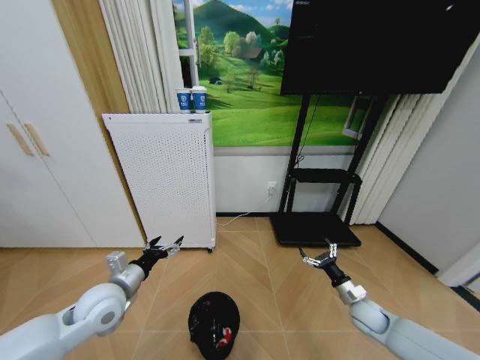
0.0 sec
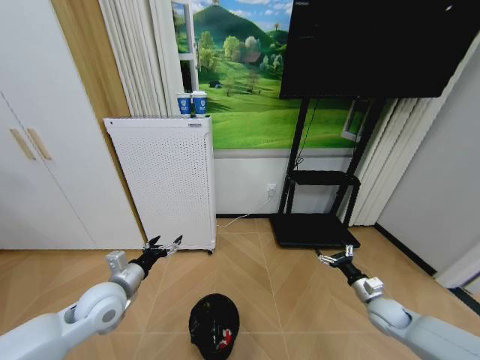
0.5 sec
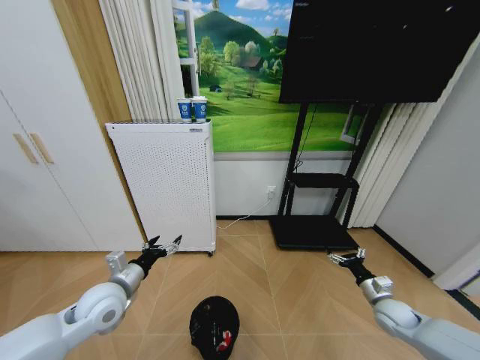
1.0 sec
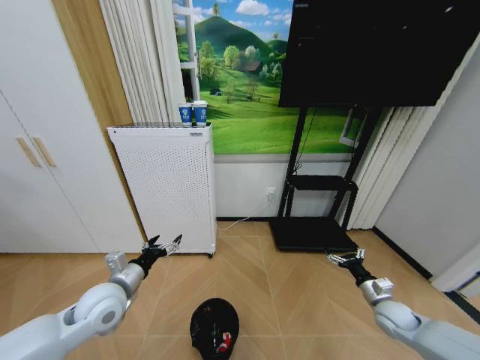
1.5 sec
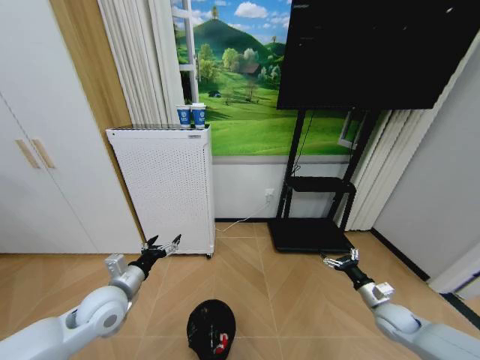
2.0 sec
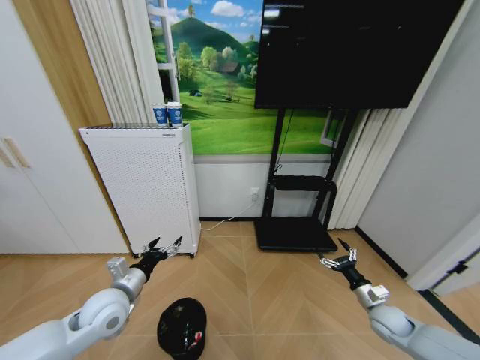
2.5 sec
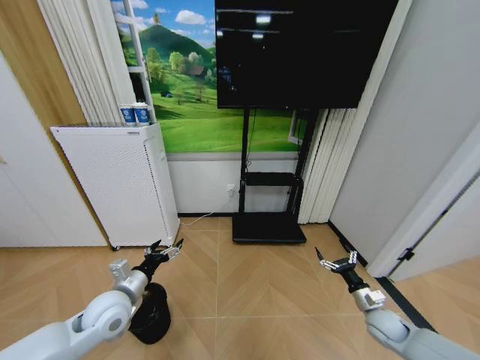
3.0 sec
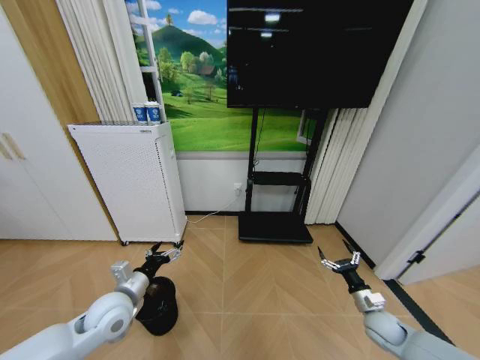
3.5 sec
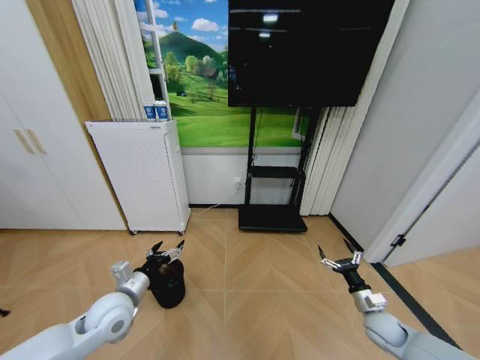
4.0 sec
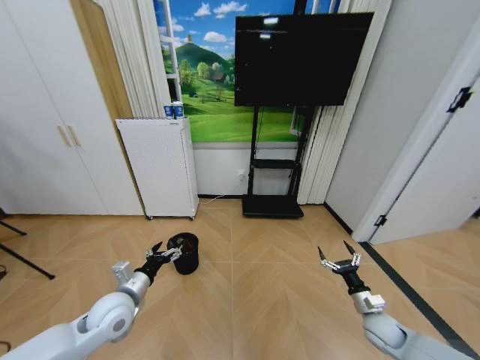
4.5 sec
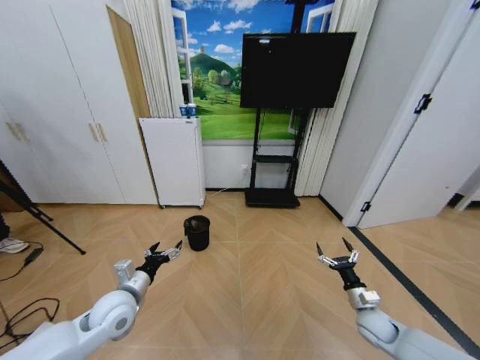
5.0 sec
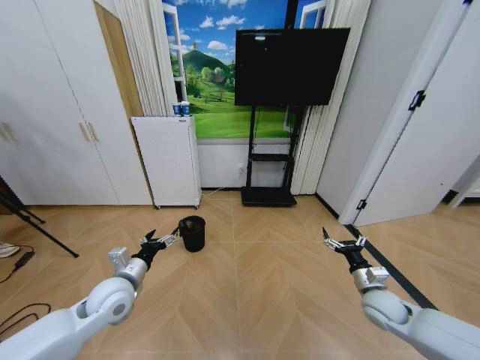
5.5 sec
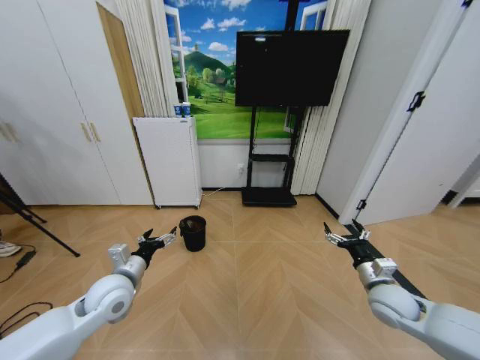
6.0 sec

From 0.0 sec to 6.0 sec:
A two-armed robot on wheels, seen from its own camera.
Task of the whole recording: Pick up the trash bin and place the garbage on the floor into it.
From 0.0 sec to 2.0 sec: The right gripper goes approximately 5 cm to the right.
From 4.0 sec to 6.0 sec: The right gripper heads upward, covering some 15 cm.

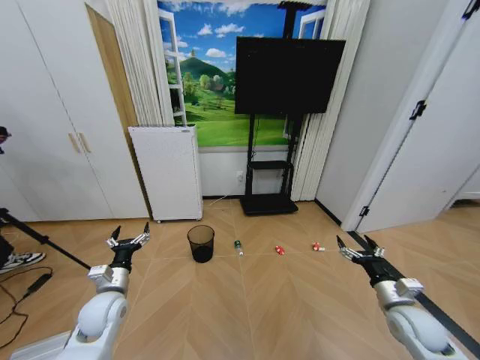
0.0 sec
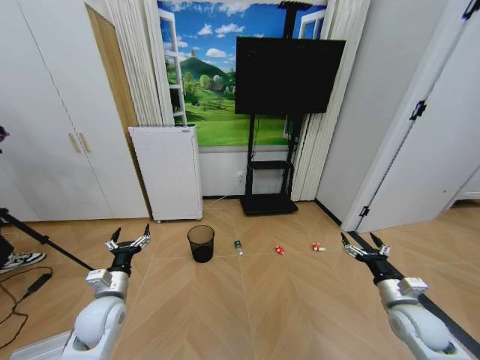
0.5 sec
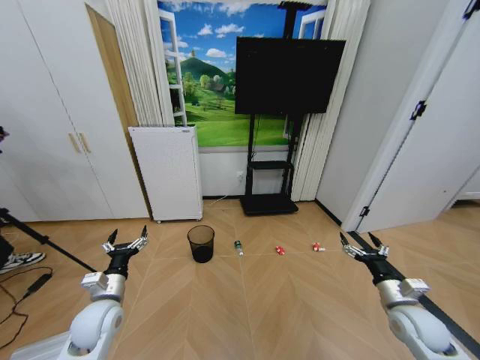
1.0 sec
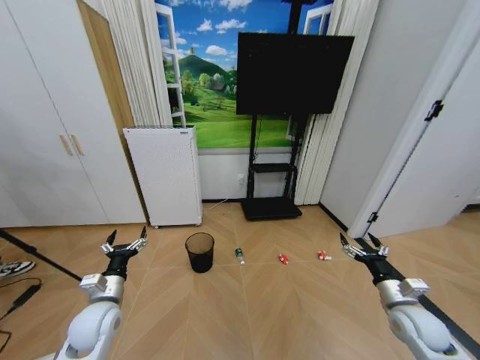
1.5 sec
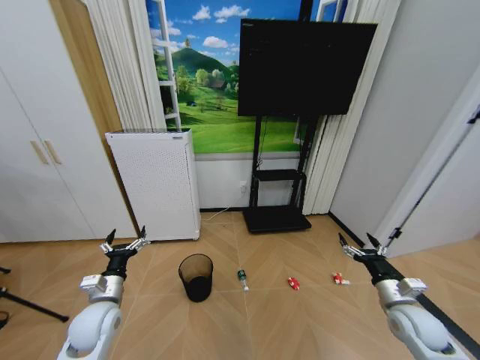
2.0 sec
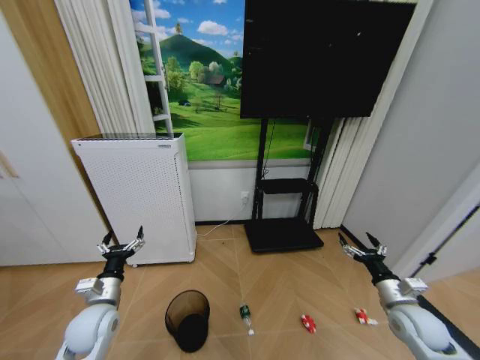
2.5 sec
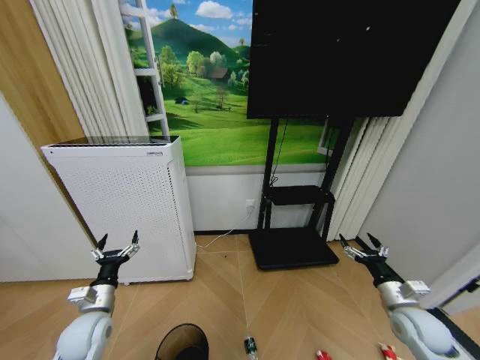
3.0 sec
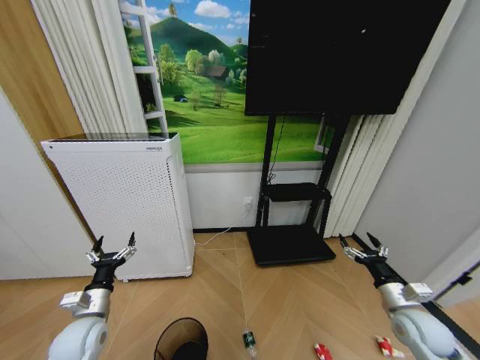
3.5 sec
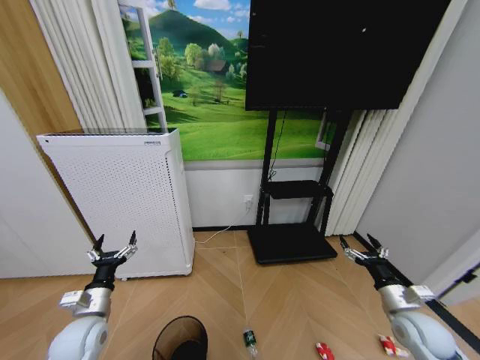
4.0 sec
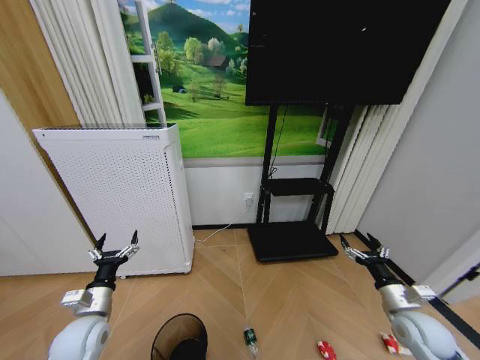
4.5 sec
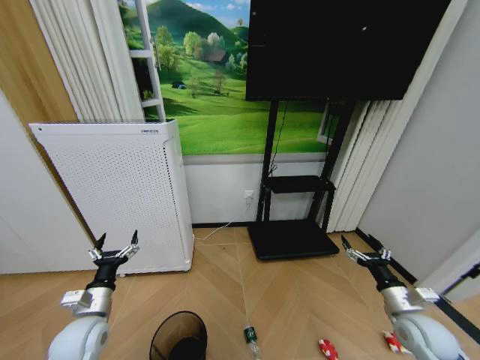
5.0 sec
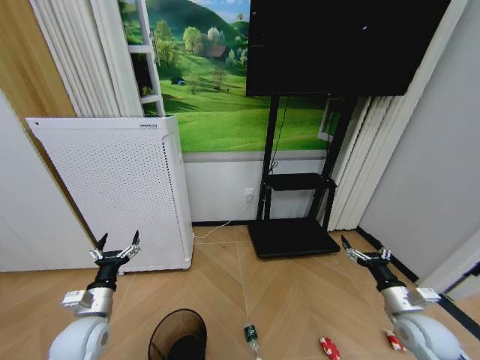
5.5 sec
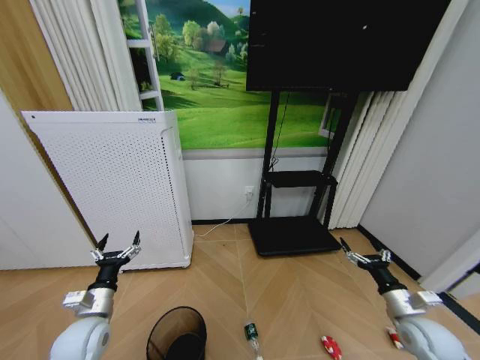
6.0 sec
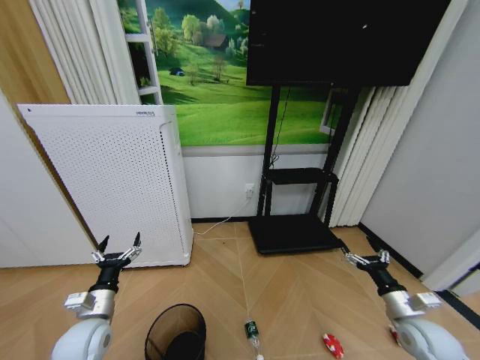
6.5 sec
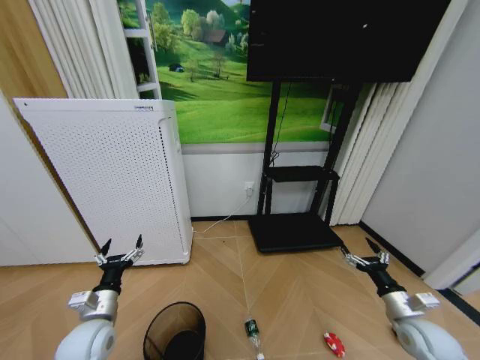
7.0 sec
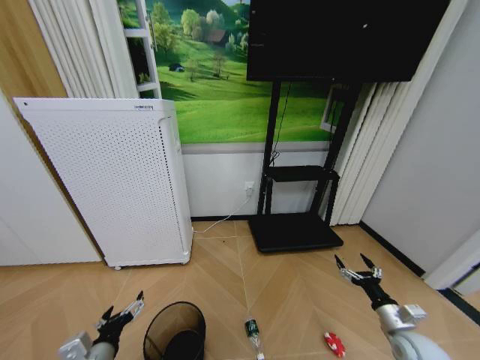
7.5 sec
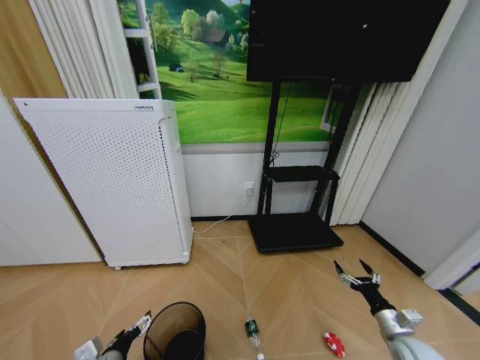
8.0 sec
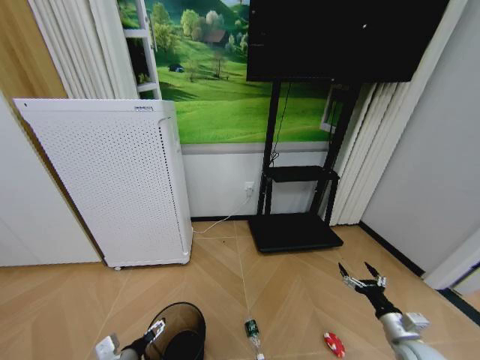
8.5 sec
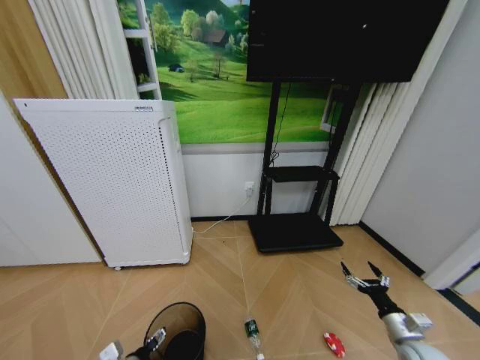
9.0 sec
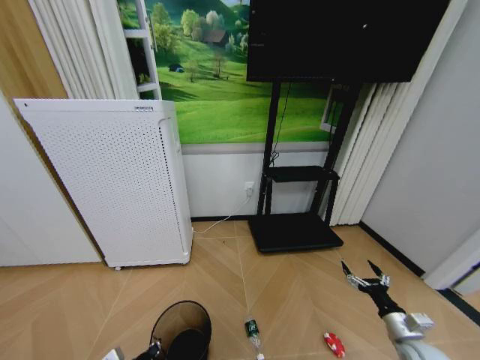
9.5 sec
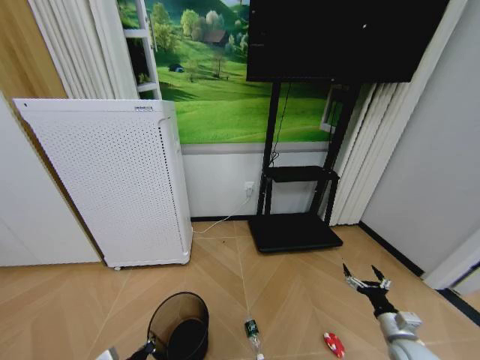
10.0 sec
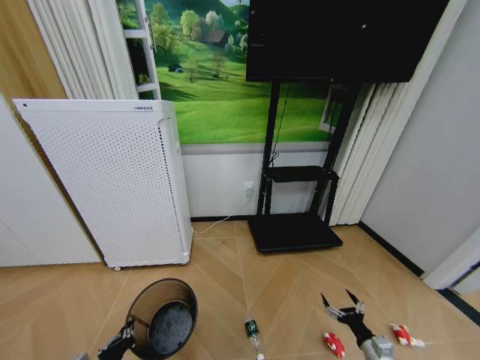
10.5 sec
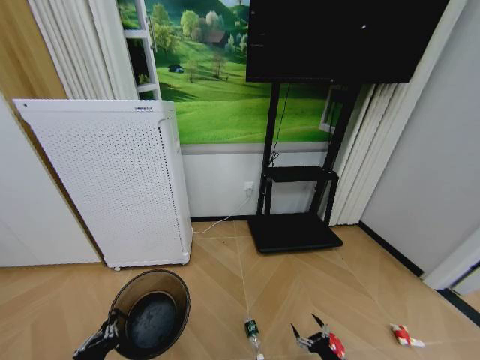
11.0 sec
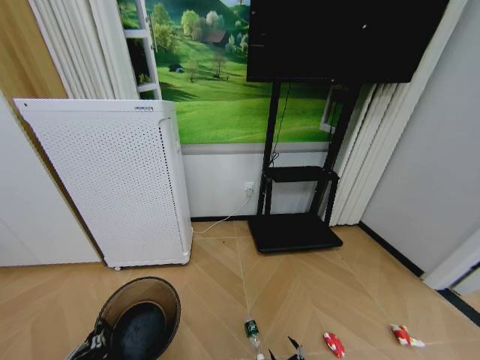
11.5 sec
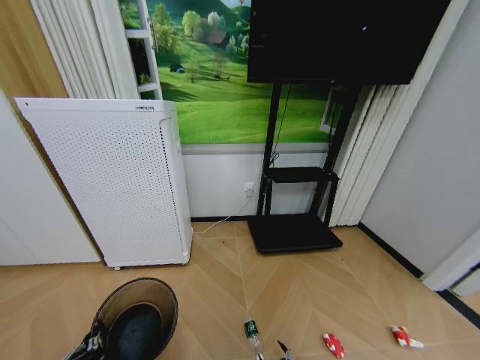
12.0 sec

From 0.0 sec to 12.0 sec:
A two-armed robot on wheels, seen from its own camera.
Task of the whole recording: Pick up the trash bin and place the garbage on the floor into it.
From 6.0 sec to 8.0 sec: The left gripper heads backward, covering approximately 10 cm. Meanwhile the right gripper is displaced downward by roughly 10 cm.
From 8.0 sec to 10.0 sec: The left gripper closes.
From 10.0 sec to 12.0 sec: The left gripper heads upward and backward, covering approximately 15 cm; the right gripper is displaced to the left, downward and backward by about 30 cm.

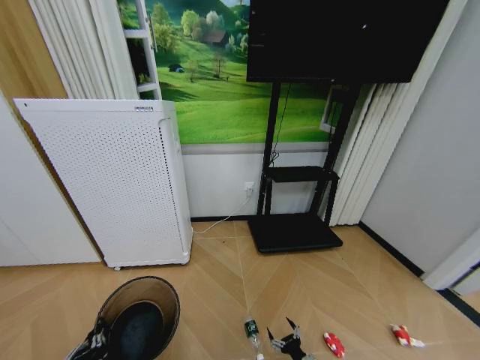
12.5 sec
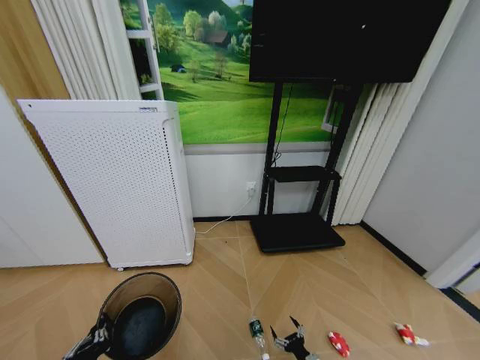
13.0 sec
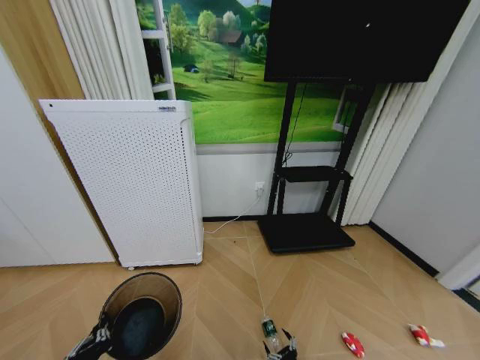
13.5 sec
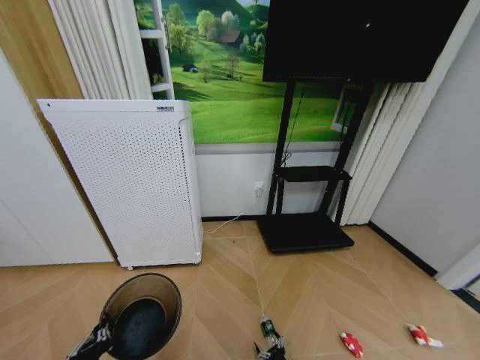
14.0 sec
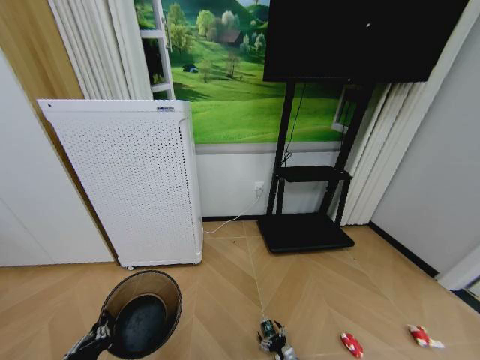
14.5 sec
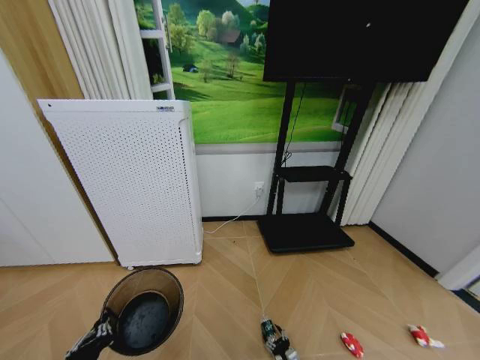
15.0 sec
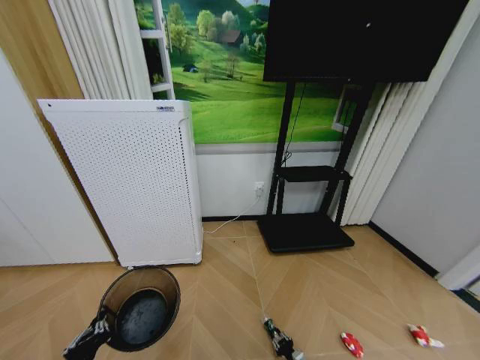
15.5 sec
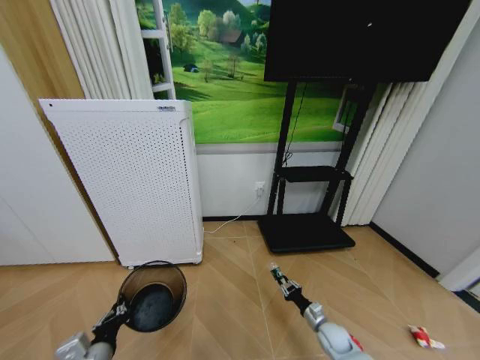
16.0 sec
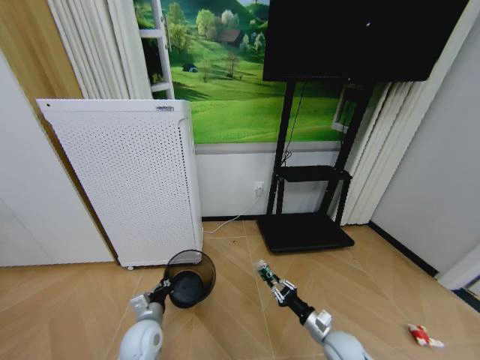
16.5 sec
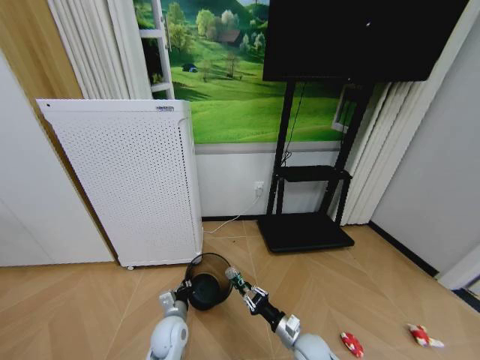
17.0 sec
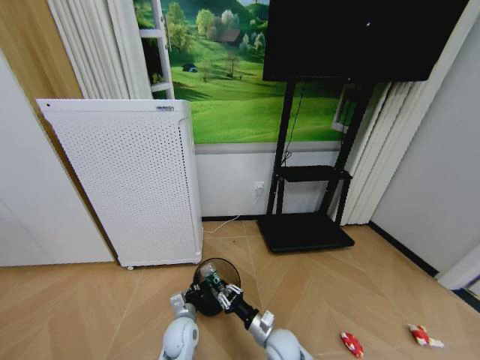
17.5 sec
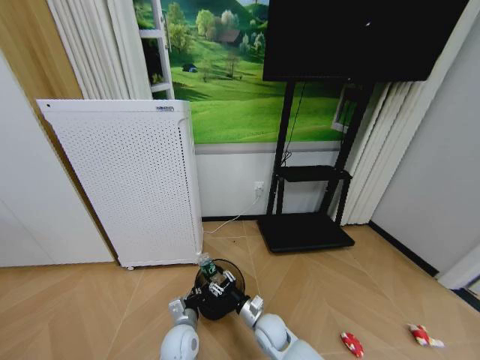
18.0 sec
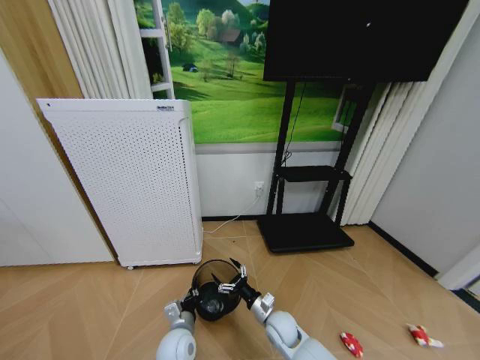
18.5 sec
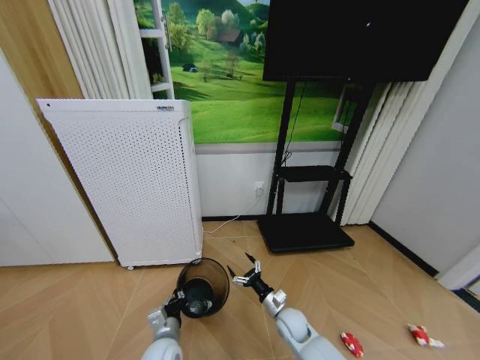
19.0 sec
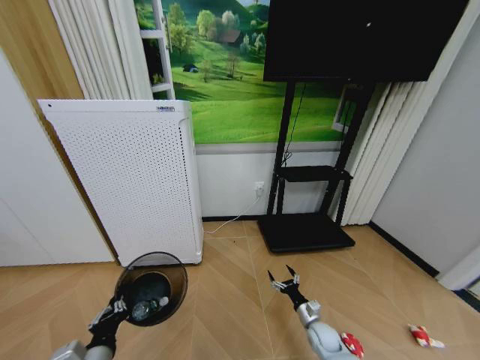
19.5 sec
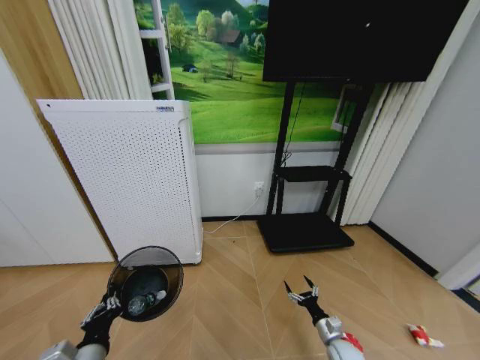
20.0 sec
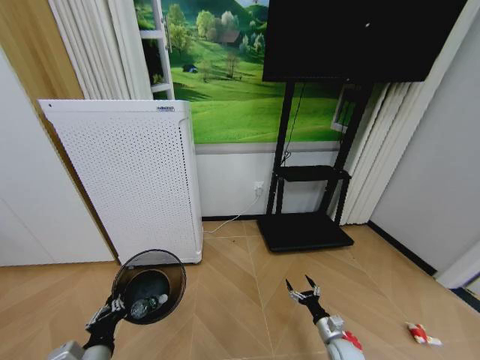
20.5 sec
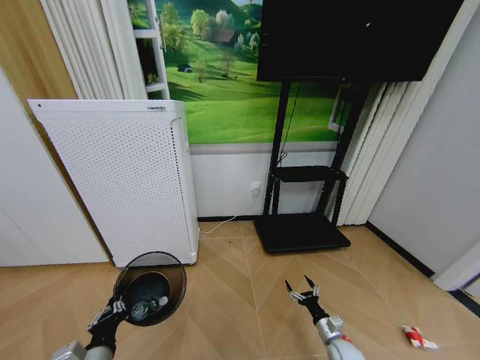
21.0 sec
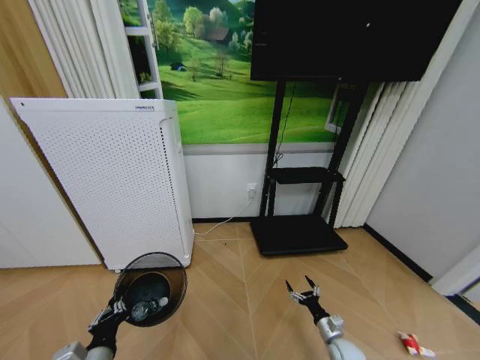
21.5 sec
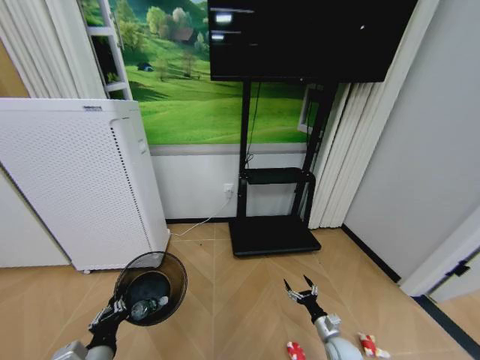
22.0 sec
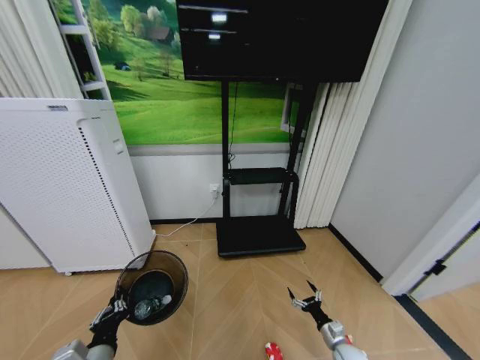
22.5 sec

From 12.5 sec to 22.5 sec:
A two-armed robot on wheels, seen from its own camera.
Task of the whole recording: Pick up the trash bin and place the garbage on the floor into it.
From 12.5 sec to 14.5 sec: The right gripper heads downward, covering some 10 cm.
From 14.5 sec to 16.5 sec: The right gripper heads upward, covering approximately 25 cm, and closes its fingers; the left gripper goes about 20 cm forward and downward.
From 16.5 sec to 18.5 sec: The right gripper travels to the left by roughly 15 cm, and opens its fingers. Meanwhile the left gripper goes roughly 10 cm to the right.
From 18.5 sec to 20.5 sec: The right gripper shifts roughly 25 cm to the right and downward. The left gripper heads upward, to the left and backward, covering about 20 cm.
